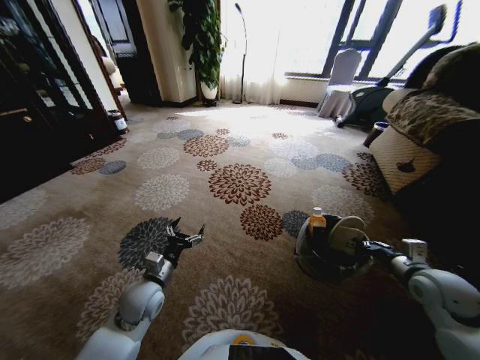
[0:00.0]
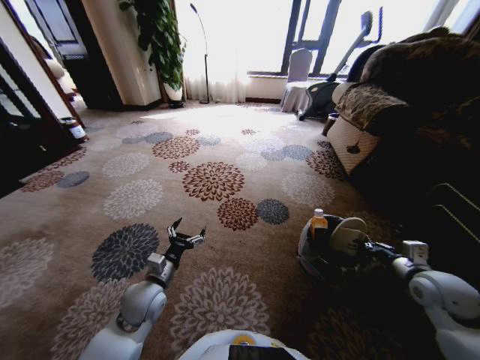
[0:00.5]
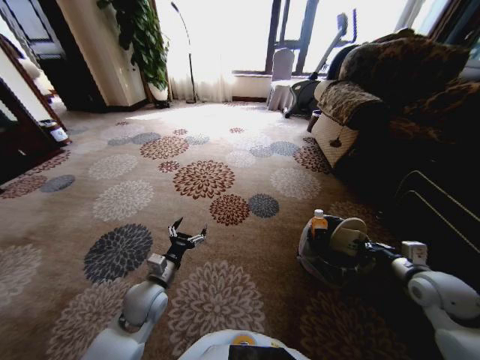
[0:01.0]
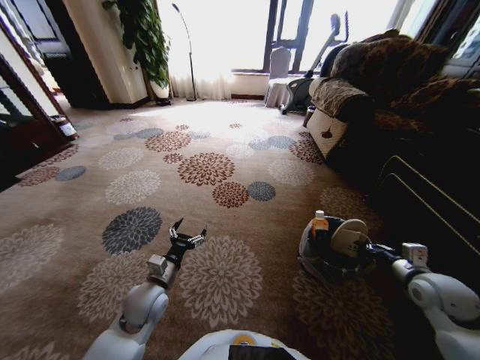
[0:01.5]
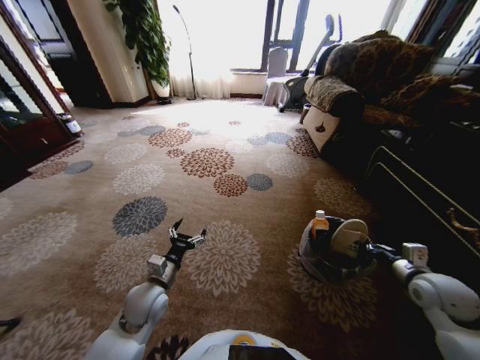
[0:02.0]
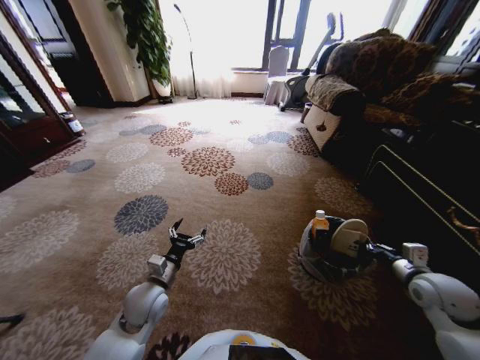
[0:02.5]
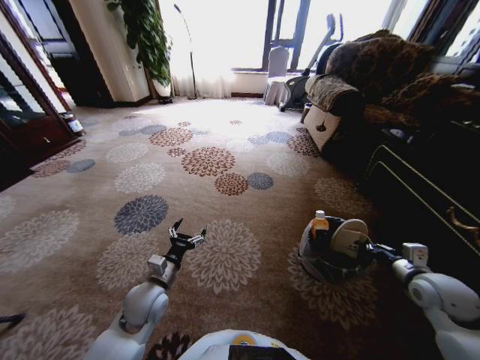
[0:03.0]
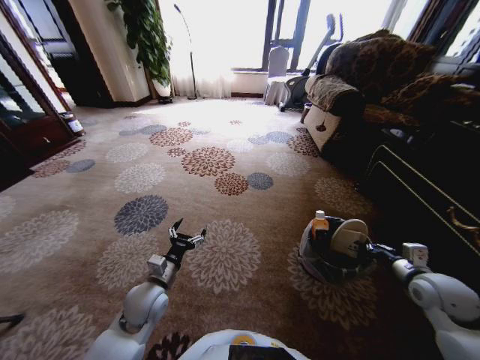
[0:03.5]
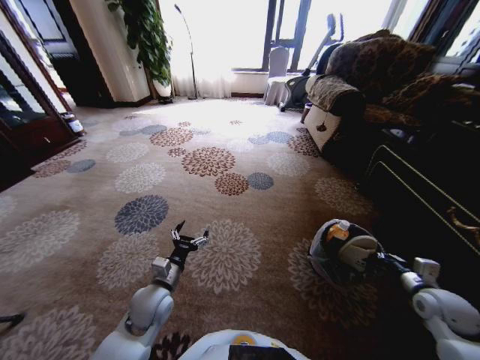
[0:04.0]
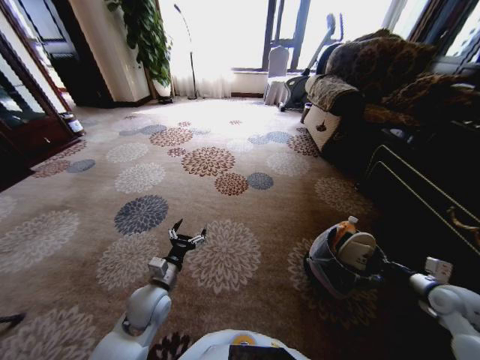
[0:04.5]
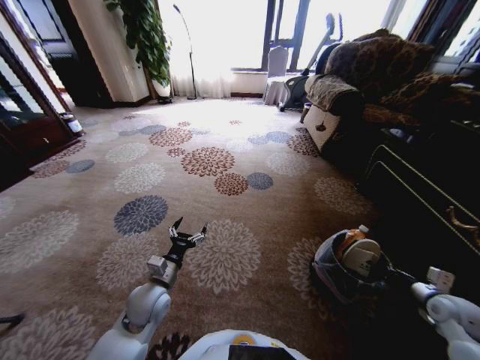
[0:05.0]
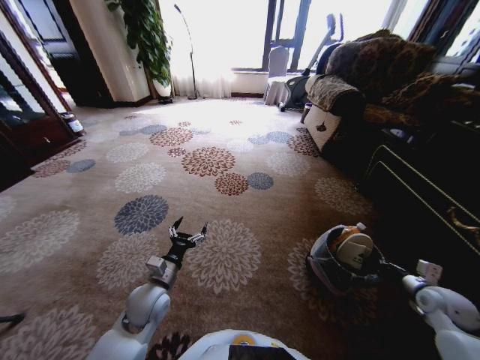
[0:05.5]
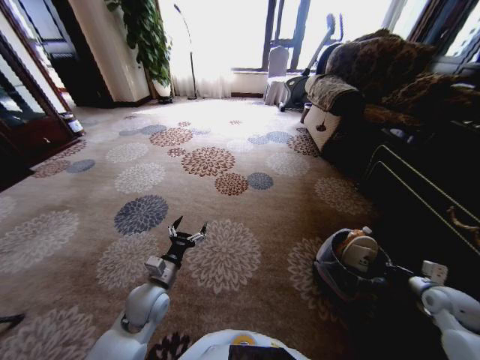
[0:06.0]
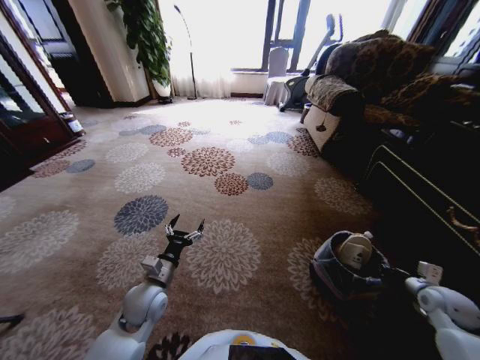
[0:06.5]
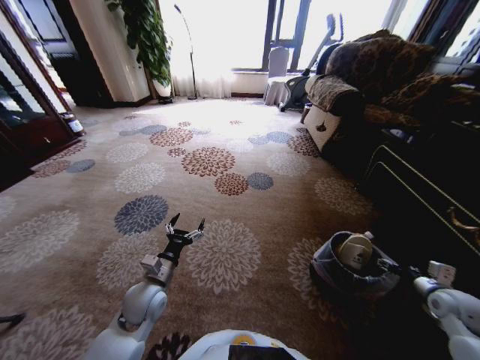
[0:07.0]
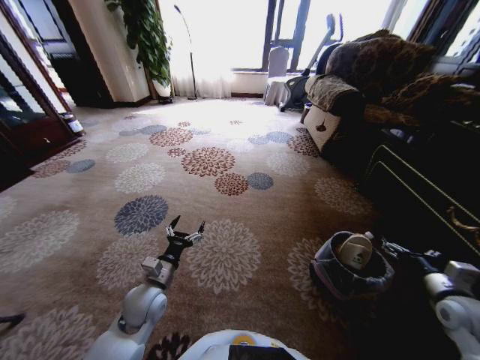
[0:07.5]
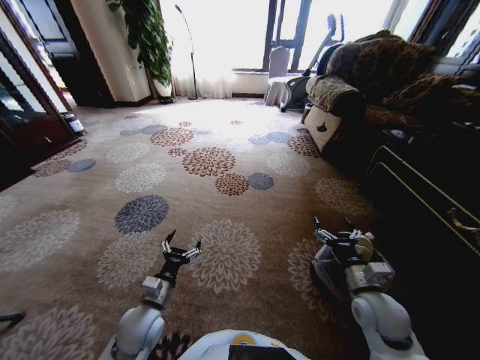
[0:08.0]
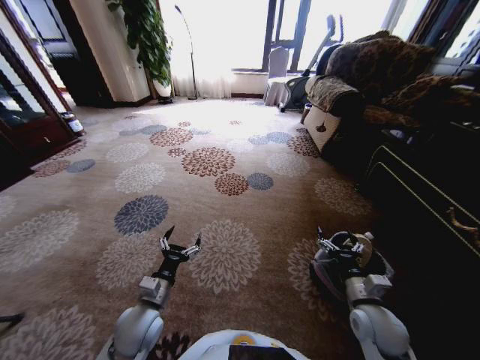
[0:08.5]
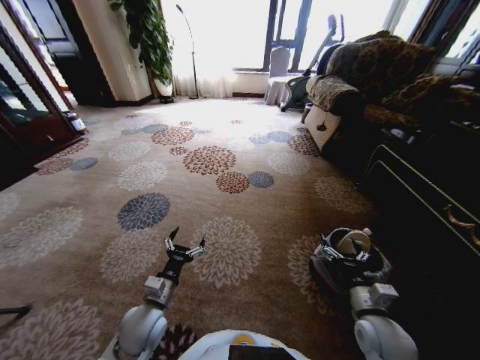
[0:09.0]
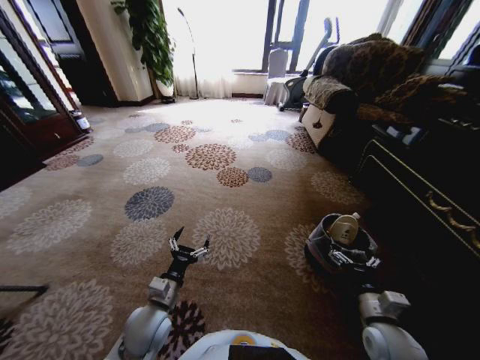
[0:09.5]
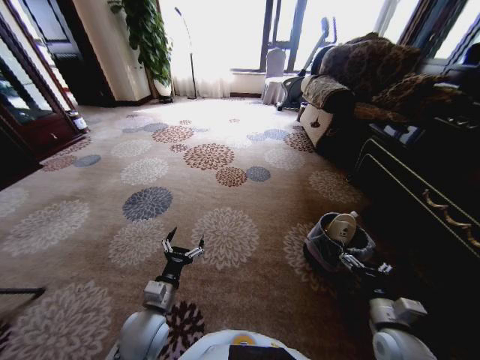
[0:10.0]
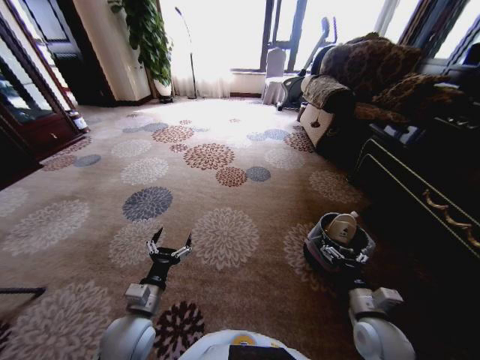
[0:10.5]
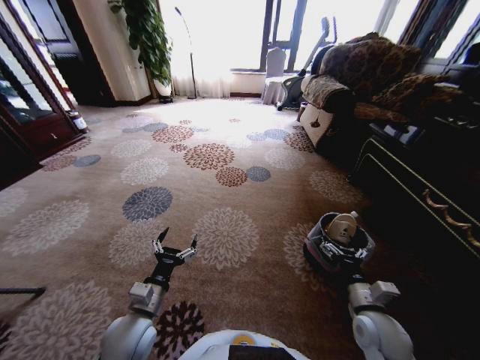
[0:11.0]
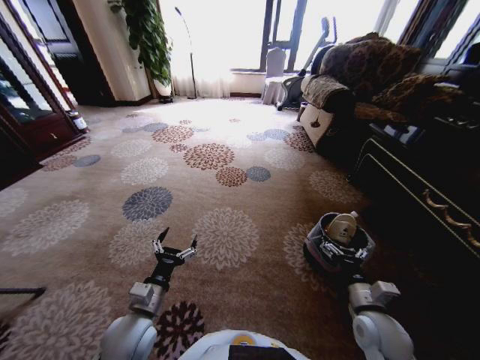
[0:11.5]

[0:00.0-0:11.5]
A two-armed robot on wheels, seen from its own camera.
Task of the whole recording: Pick up the trash from the ground and place it into the trash bin.
0:02.0 to 0:04.0: The right gripper goes approximately 5 cm downward.
0:04.0 to 0:06.0: The right gripper shifts by about 5 cm.
0:06.0 to 0:07.5: The right gripper heads upward, covering about 5 cm, and opens its fingers.
0:07.5 to 0:09.5: The left gripper changes place by some 5 cm; the right gripper moves to the left, roughly 15 cm.
0:09.5 to 0:11.5: The grippers stay close to where they were, moving slightly.
